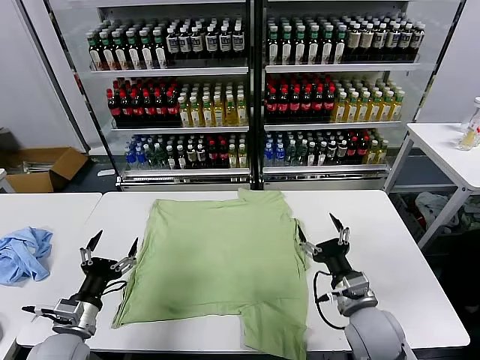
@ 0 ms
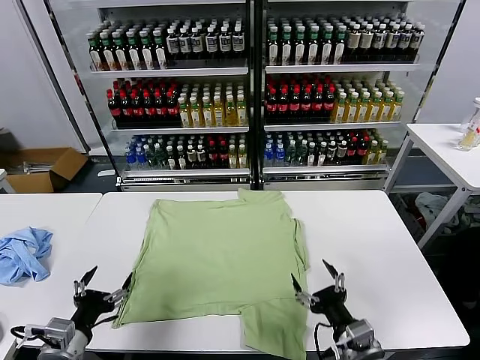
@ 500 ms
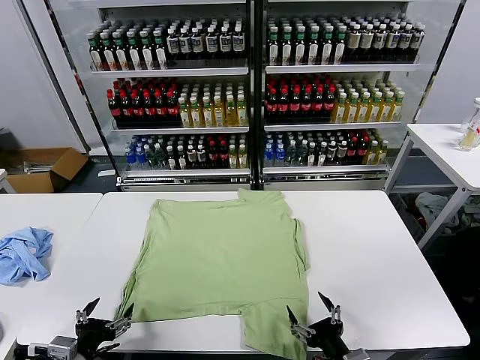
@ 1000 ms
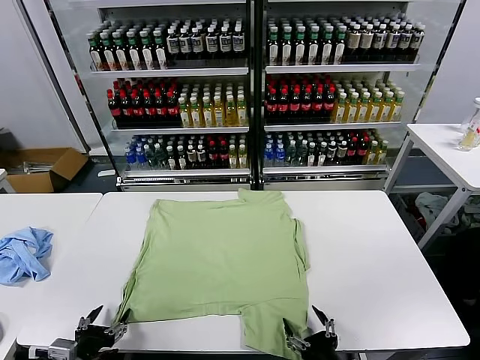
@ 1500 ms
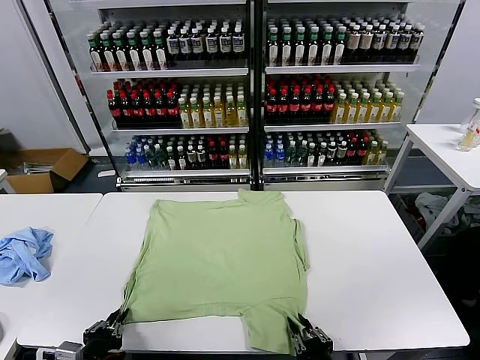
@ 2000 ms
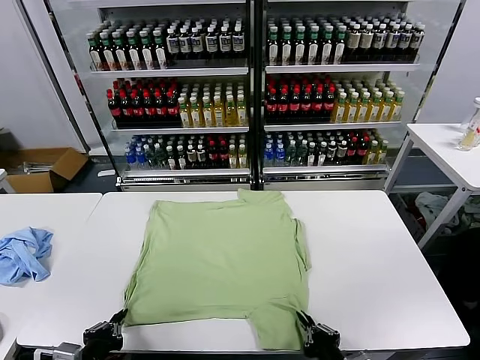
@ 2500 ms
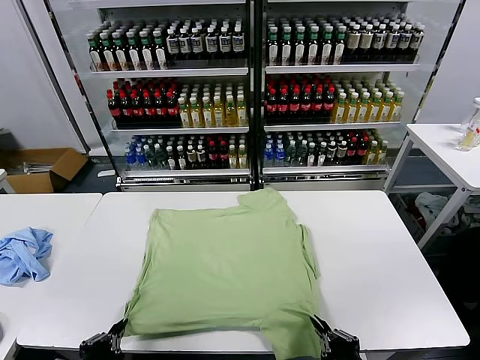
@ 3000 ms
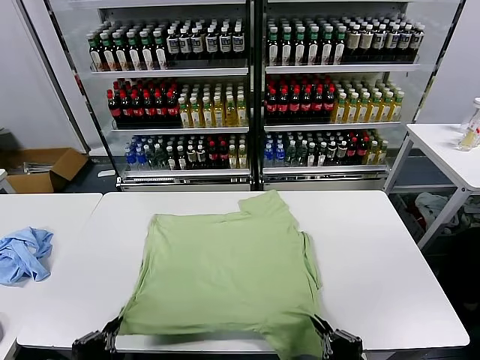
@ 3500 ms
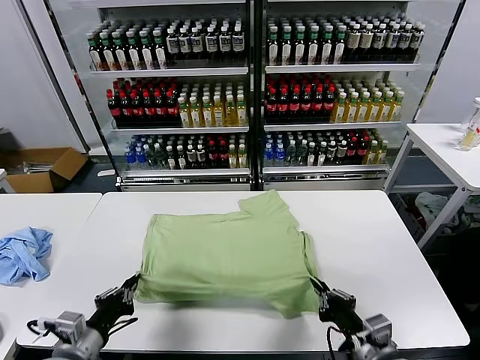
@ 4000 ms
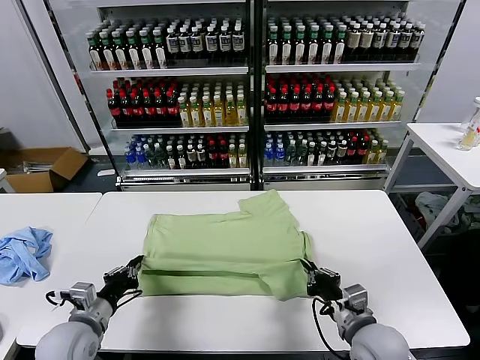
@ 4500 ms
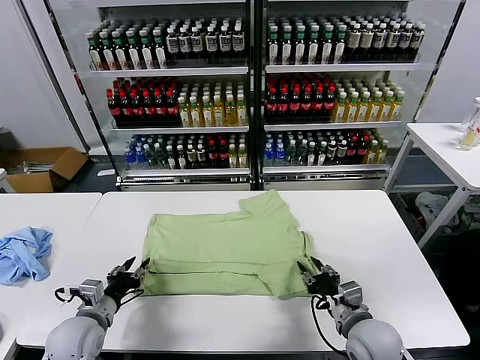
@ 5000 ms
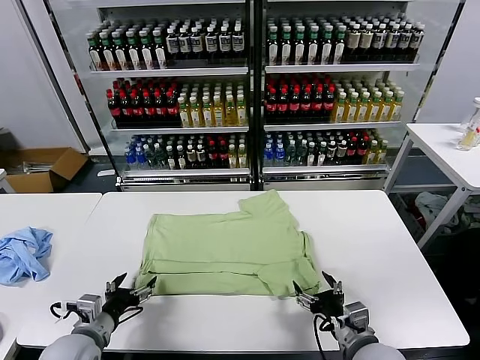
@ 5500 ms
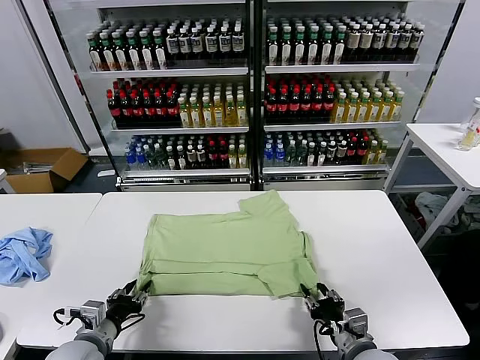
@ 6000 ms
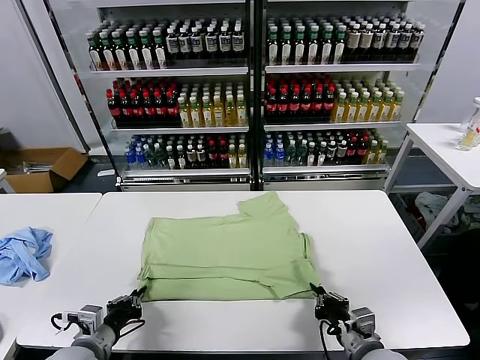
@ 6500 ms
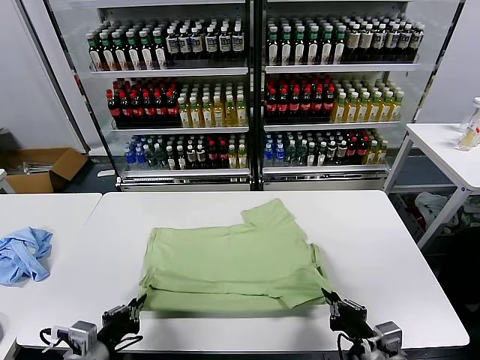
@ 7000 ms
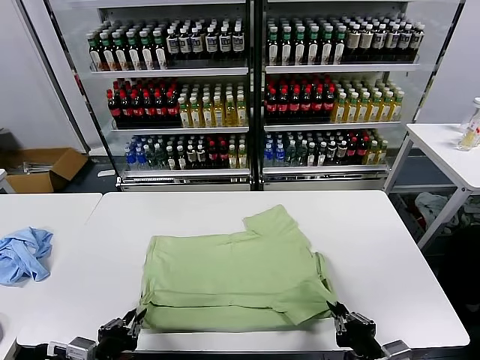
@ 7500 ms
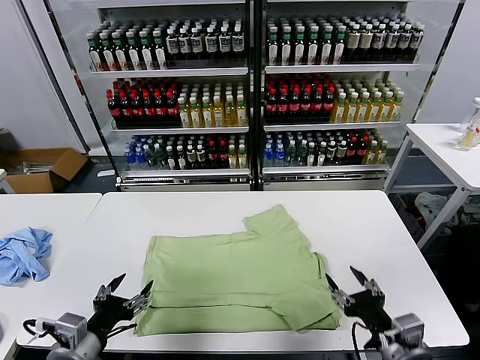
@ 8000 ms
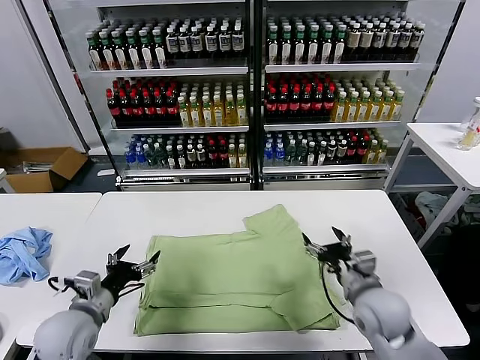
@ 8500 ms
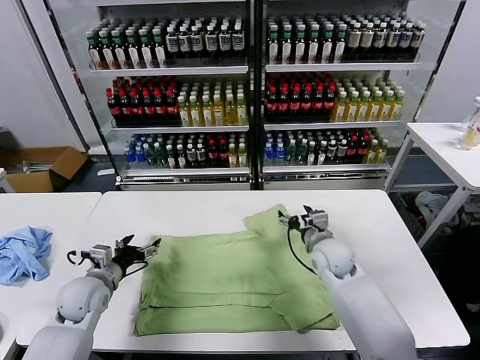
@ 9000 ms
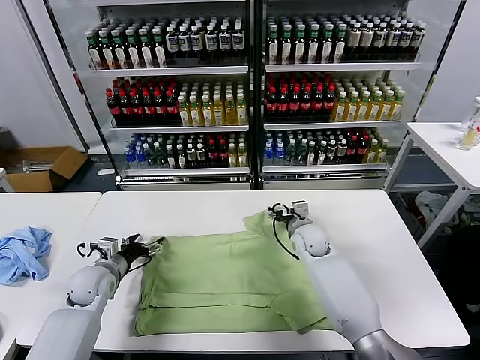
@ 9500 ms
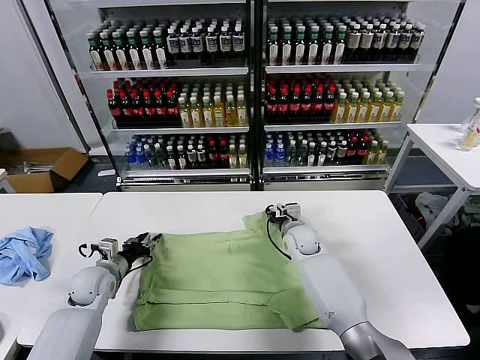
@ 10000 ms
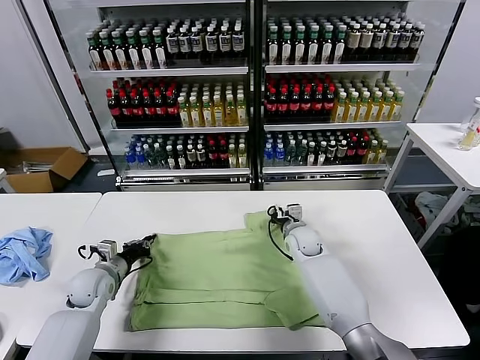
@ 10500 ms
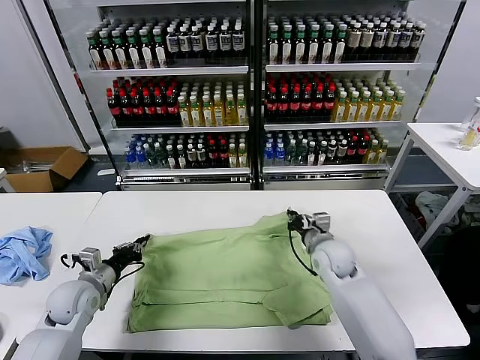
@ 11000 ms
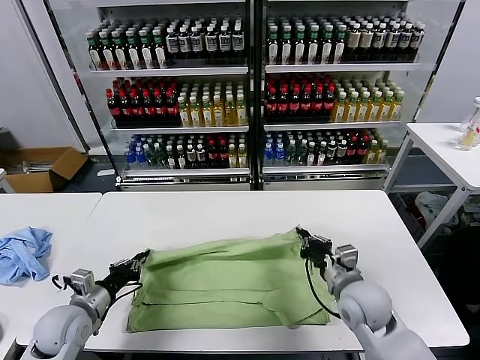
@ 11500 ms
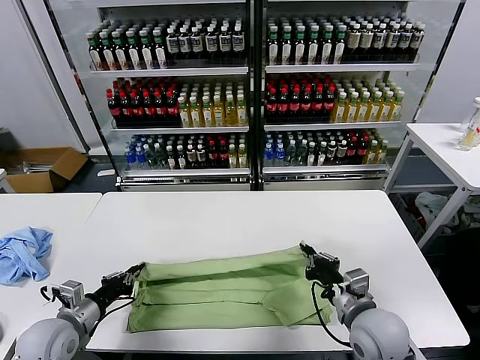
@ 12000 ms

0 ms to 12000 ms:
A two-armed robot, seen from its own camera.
Task of the whole recording: fold and organize the clothes.
Step, 0 ms to 2500 ms: use both grippers simultaneously to clamp the lower edge of the clothing fabric.
Step, 3000 ms to 5000 ms: use both grippers to drag the lower edge of the fabric forward and fold it over the upper edge.
Step, 5500 ms to 7500 ms: Drag the clothes downward with both gripper.
Step, 8000 ms to 10000 ms: use both grippers simultaneously to clamp the upper edge of the clothing fabric.
2000 ms to 4000 ms: The right gripper heads forward and upward, covering roughly 10 cm. Meanwhile the left gripper moves approximately 5 cm.
4000 ms to 6000 ms: The grippers both shift downward by some 5 cm. The left gripper opens up. Meanwhile the right gripper opens and closes again.
6000 ms to 8000 ms: The right gripper moves upward, roughly 10 cm, and opens up. Meanwhile the left gripper travels upward and backward by about 10 cm, and opens its fingers.
8000 ms to 10000 ms: The right gripper is displaced forward by about 35 cm, while the left gripper goes roughly 25 cm forward and downward.
10000 ms to 12000 ms: The left gripper travels backward by some 15 cm, and closes its fingers; the right gripper is displaced backward by roughly 30 cm, and closes up.

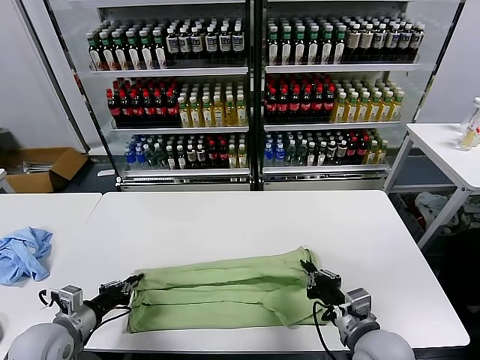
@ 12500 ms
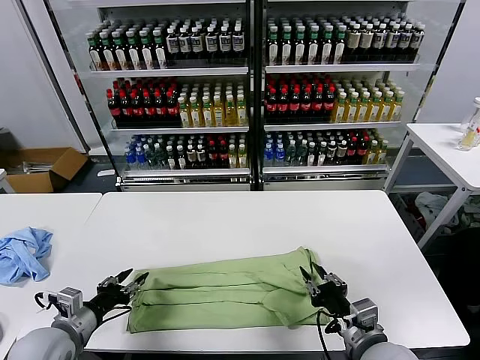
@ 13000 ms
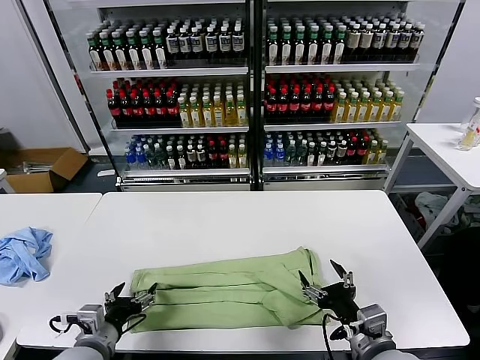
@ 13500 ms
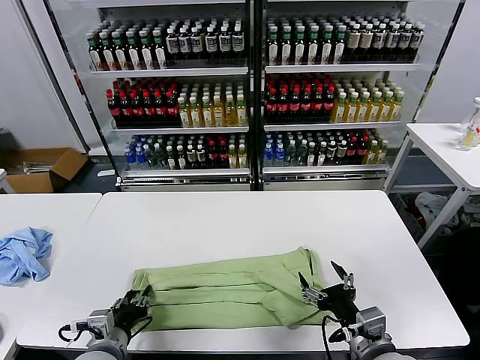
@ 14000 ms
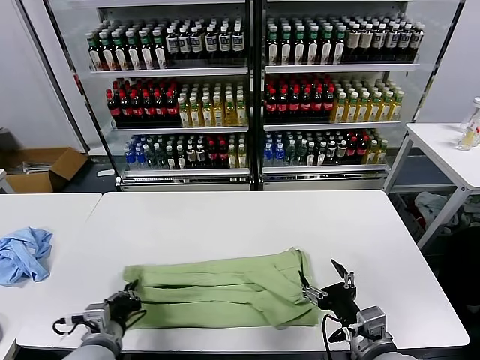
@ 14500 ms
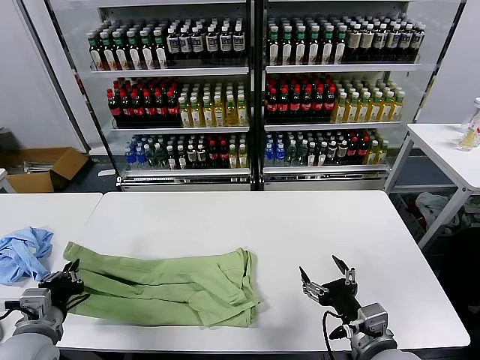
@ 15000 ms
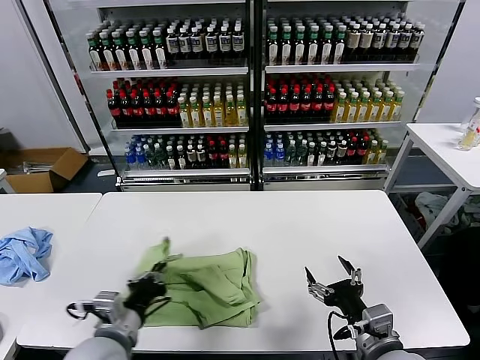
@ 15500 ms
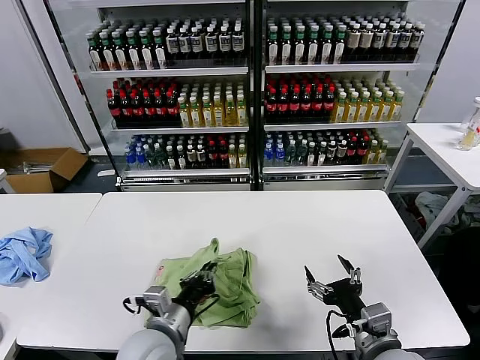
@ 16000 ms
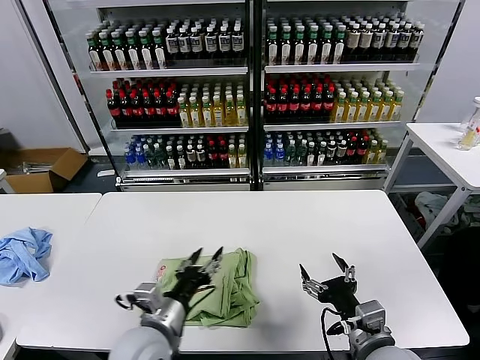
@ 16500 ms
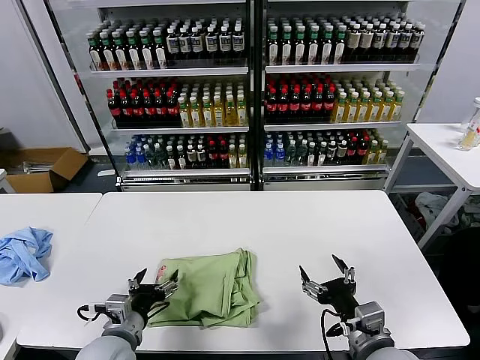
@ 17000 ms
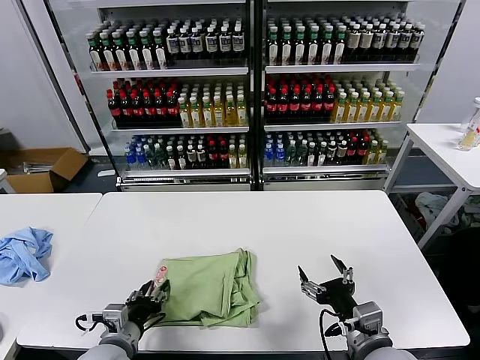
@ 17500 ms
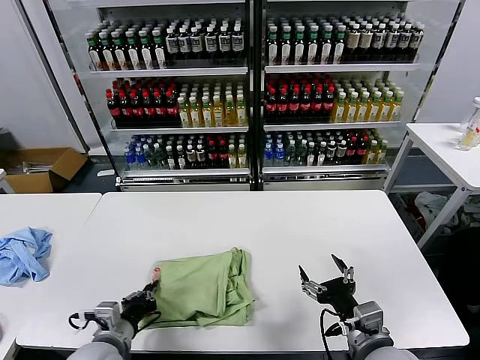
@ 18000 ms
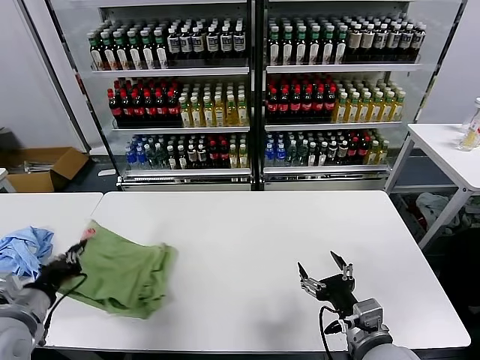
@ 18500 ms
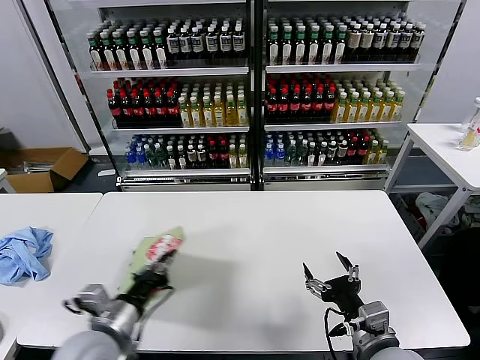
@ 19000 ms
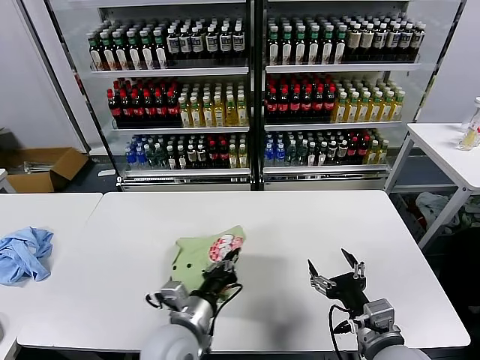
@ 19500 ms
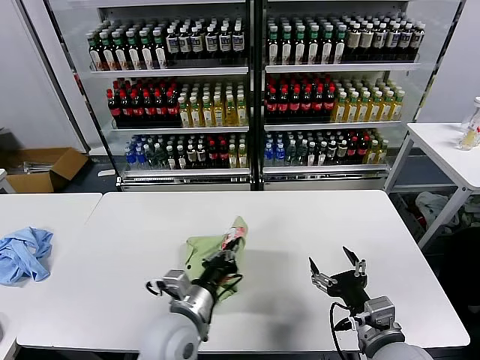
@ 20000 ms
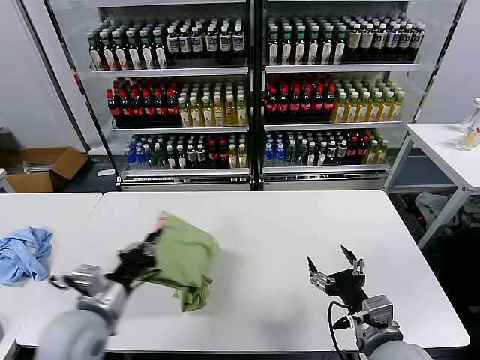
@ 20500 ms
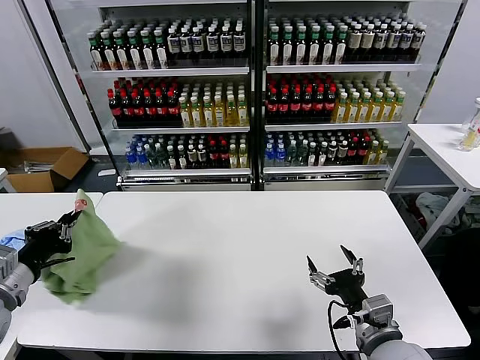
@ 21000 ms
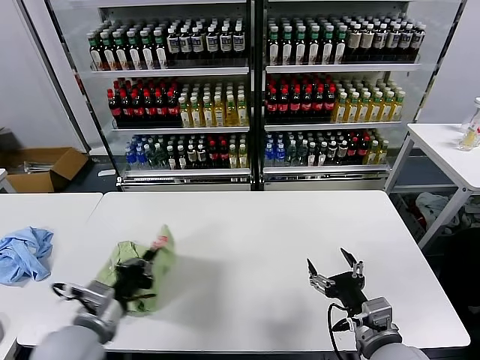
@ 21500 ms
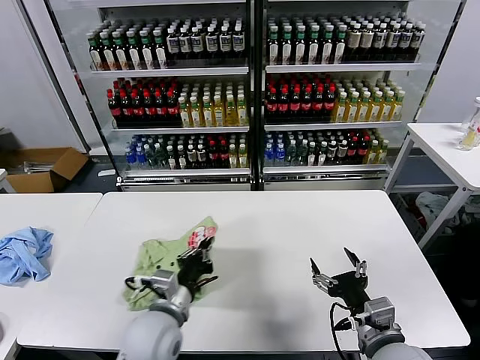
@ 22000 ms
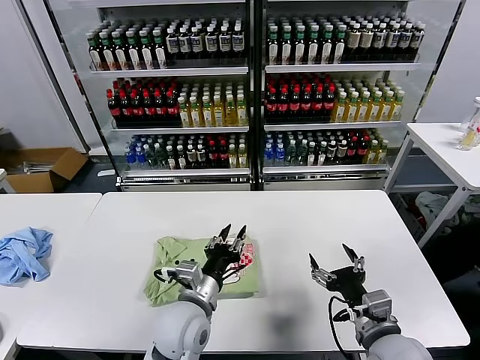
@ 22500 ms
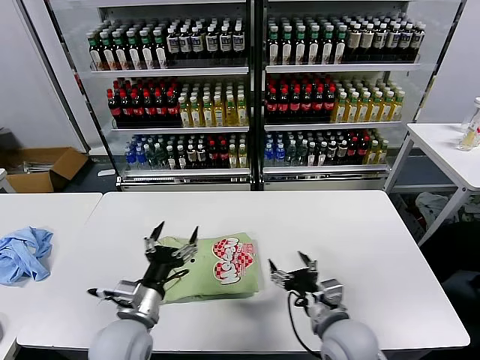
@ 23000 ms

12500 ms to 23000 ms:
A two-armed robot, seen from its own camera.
Task of the whole recording: fold and organize the clothes.
Step, 13500 ms to 14000 ms: use the left gripper to clamp the left edge of the fabric.
Step, 14500 ms to 16000 ms: use the left gripper to drag the left edge of the fabric to the left and folds it over the right edge.
Step, 16500 ms to 22500 ms: Flip the folded clothes over with left gripper.
12500 ms to 14500 ms: The right gripper opens. Meanwhile the left gripper moves to the right, some 10 cm, and opens, then closes again.
14500 ms to 16500 ms: The left gripper shifts roughly 10 cm to the right, and opens up.
16500 ms to 19000 ms: The left gripper heads to the left, covering about 10 cm, and closes.
19000 ms to 21000 ms: The left gripper goes roughly 15 cm to the left and upward.
21000 ms to 23000 ms: The right gripper heads to the left, covering roughly 5 cm. Meanwhile the left gripper moves to the right and downward, roughly 25 cm, and opens its fingers.

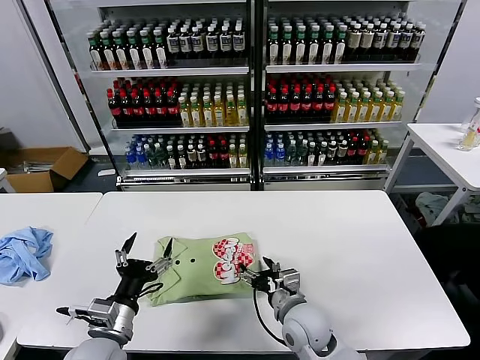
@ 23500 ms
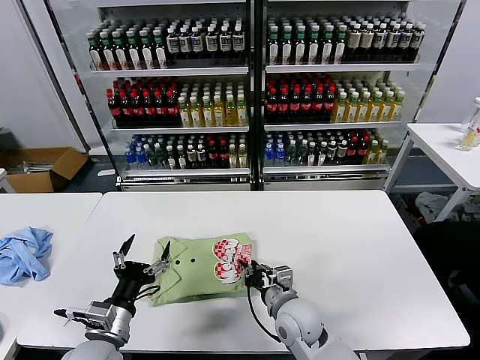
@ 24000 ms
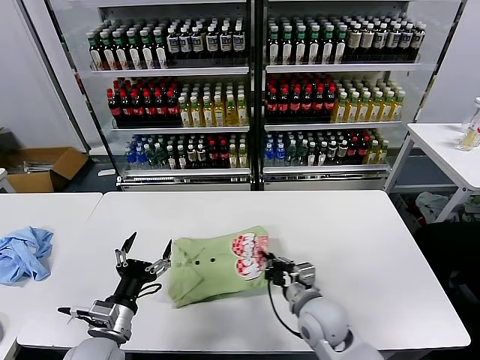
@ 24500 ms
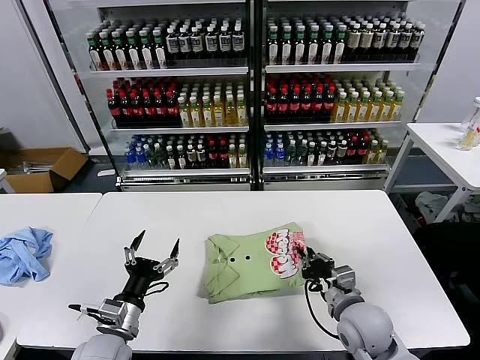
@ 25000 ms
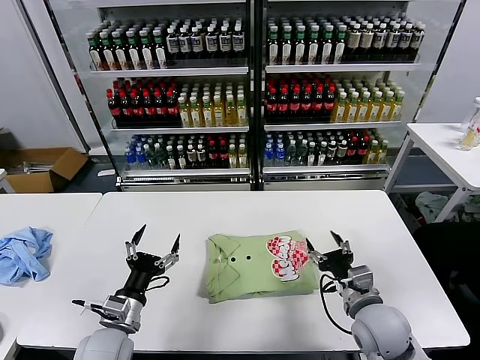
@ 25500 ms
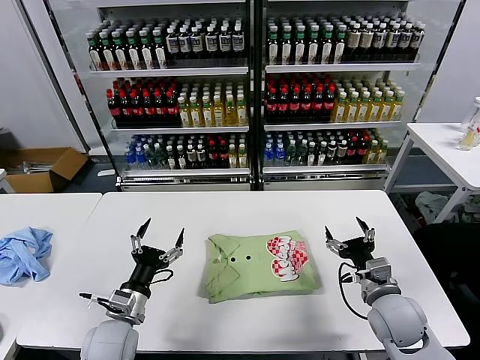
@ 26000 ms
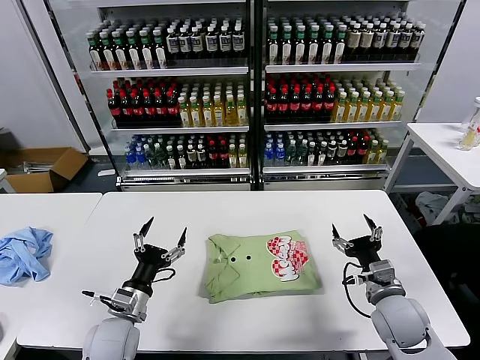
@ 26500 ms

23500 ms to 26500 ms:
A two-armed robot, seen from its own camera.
Task of the whole recording: fold and organize the clothes.
Step, 23500 ms to 25000 ms: Drag the clothes to the center of the table.
23500 ms to 25000 ms: The right gripper travels to the right by approximately 10 cm, and closes up.
25000 ms to 26500 ms: The right gripper is displaced to the right by roughly 10 cm, and opens its fingers.
